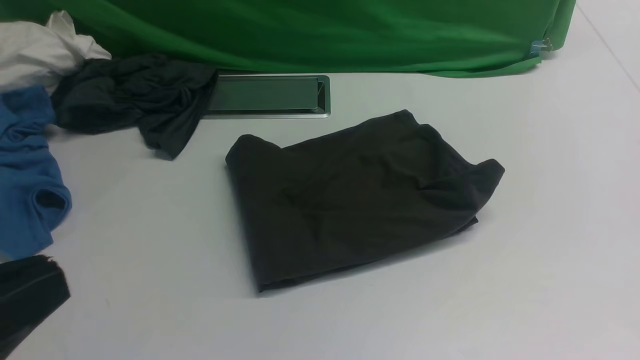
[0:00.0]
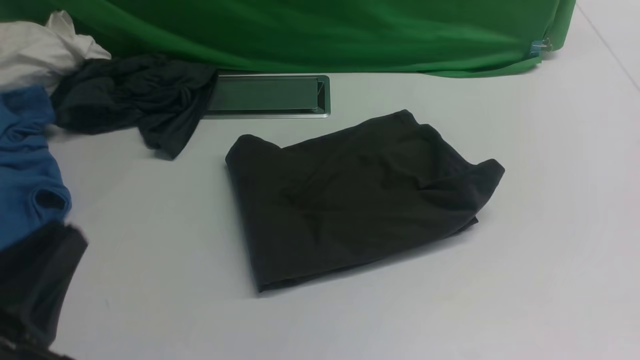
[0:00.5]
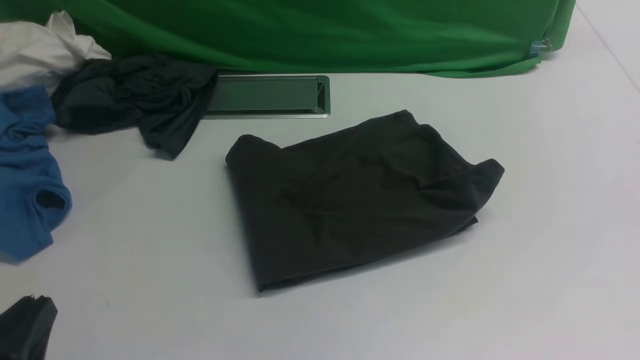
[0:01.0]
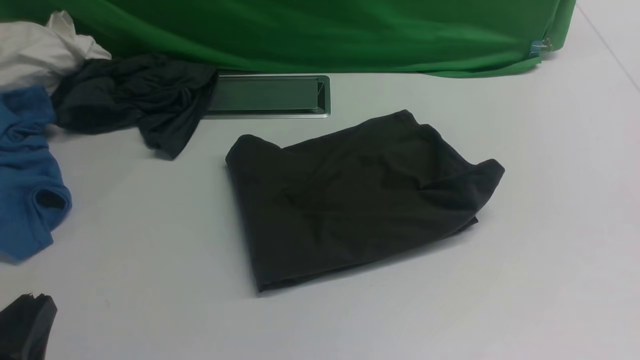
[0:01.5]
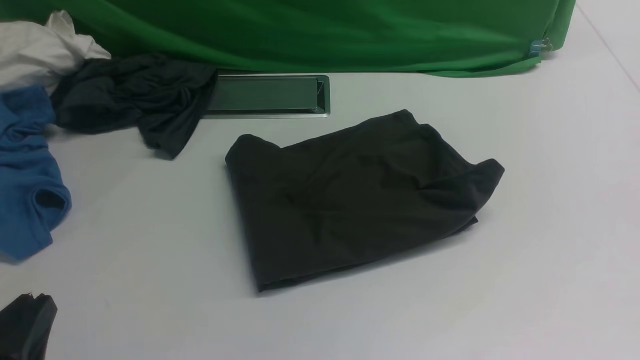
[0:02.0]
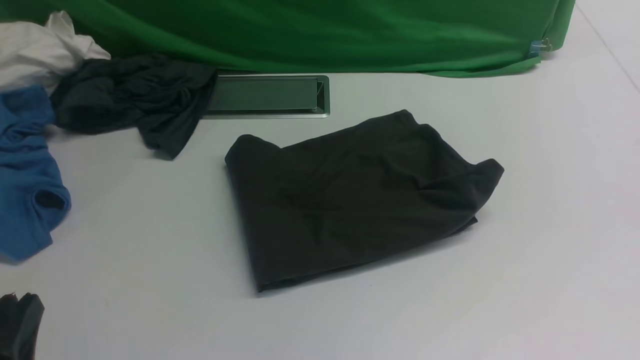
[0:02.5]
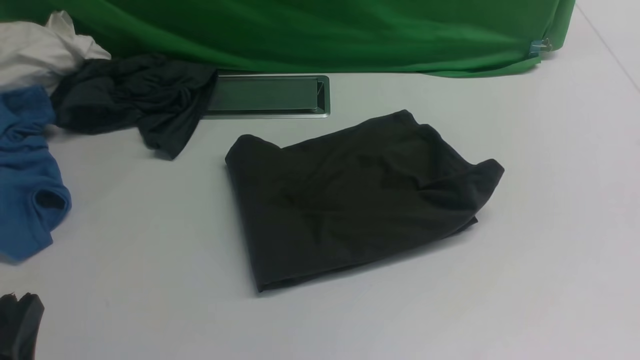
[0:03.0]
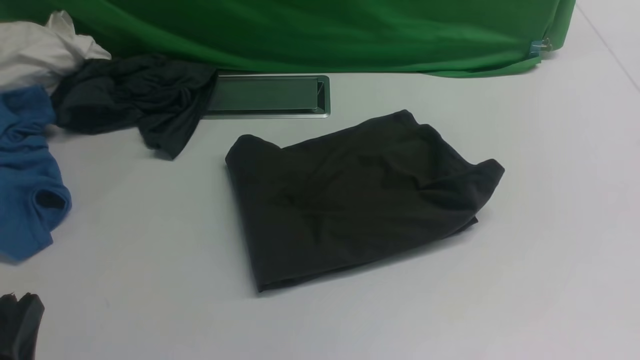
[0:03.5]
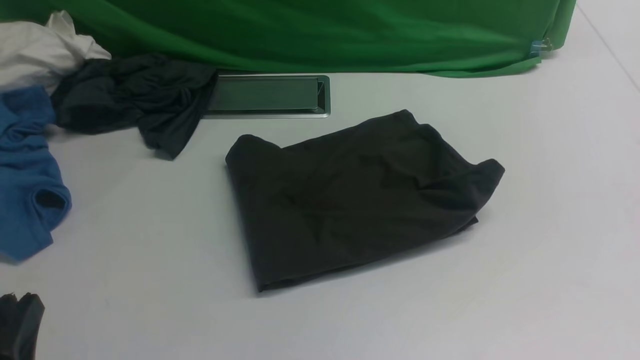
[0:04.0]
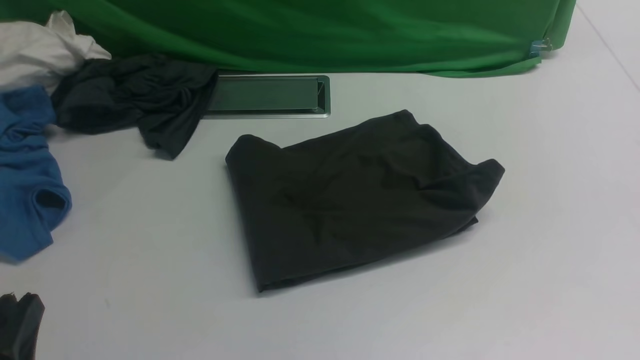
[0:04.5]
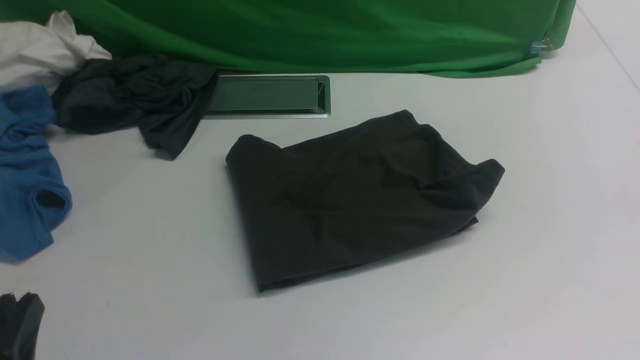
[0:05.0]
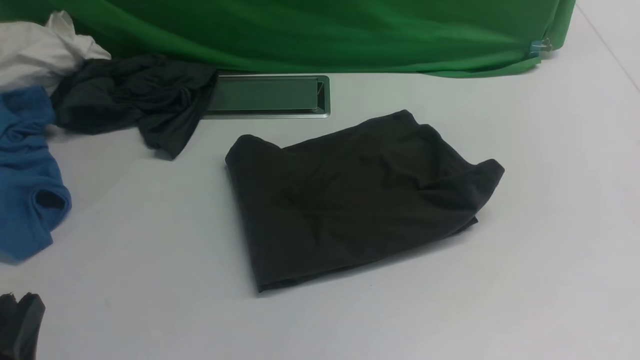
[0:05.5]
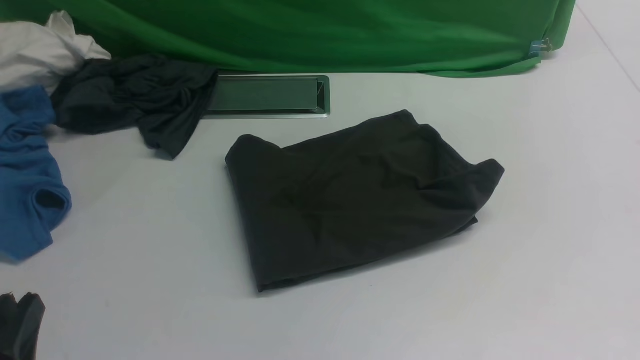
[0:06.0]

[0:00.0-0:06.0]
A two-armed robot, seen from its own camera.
0:00.0 to 0:02.0: The left gripper travels downward by about 15 cm.
0:04.0 to 0:06.0: Neither gripper changes place.
